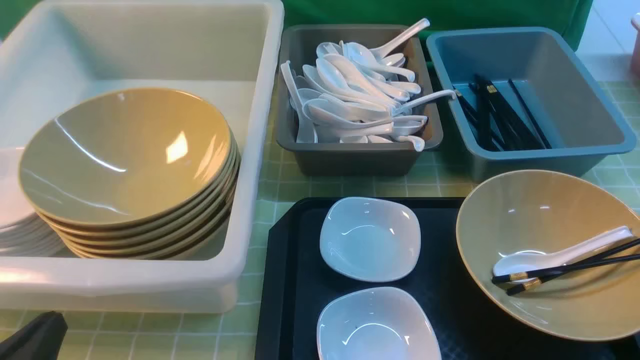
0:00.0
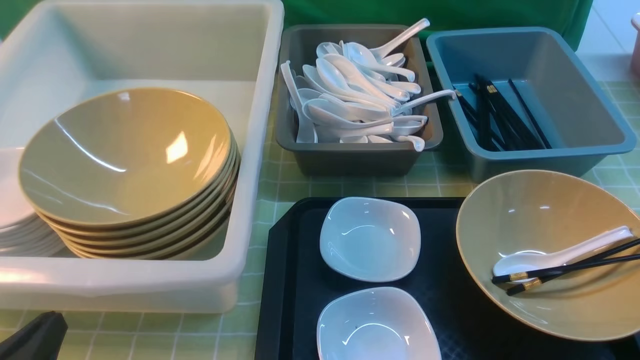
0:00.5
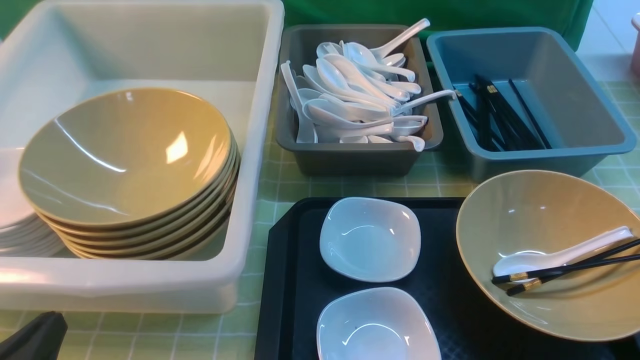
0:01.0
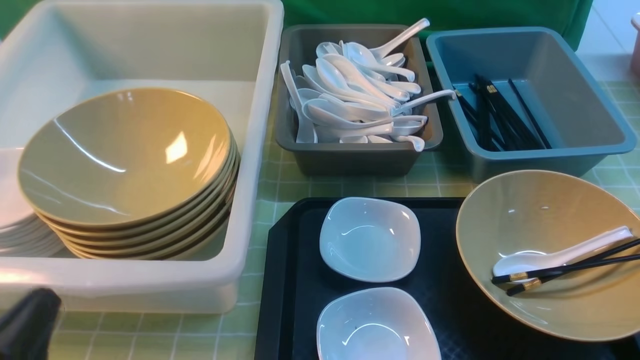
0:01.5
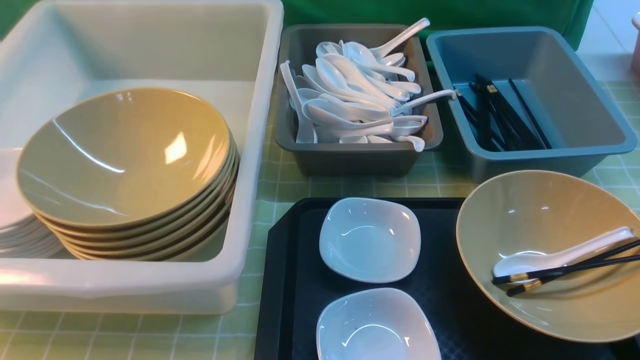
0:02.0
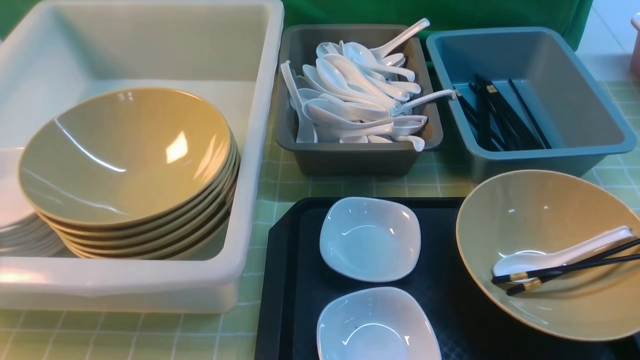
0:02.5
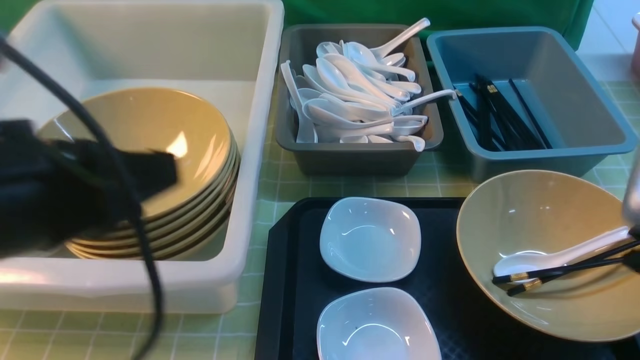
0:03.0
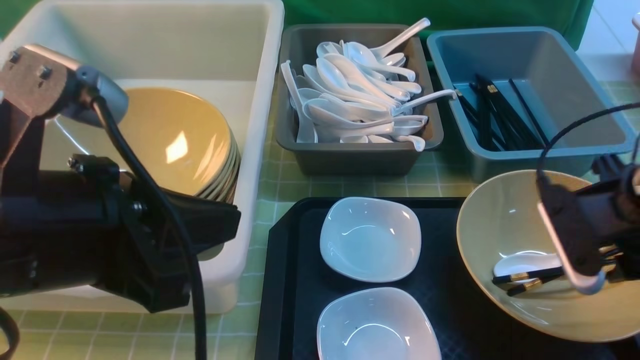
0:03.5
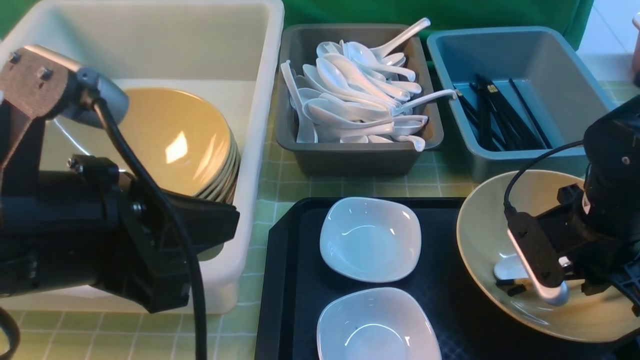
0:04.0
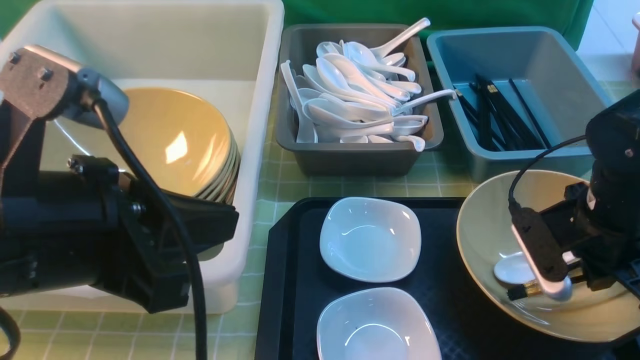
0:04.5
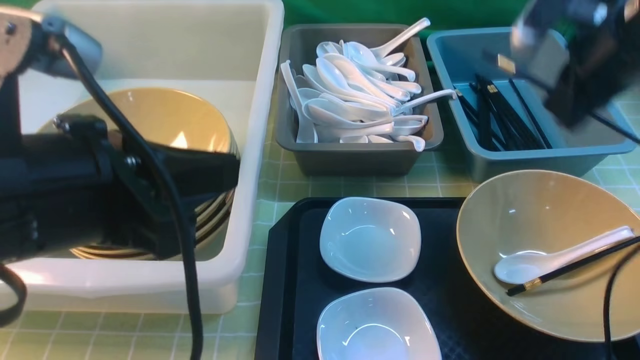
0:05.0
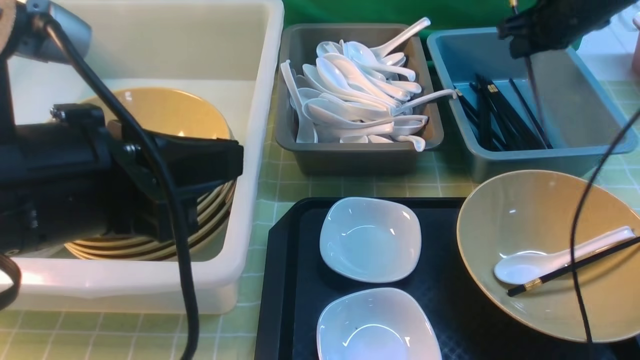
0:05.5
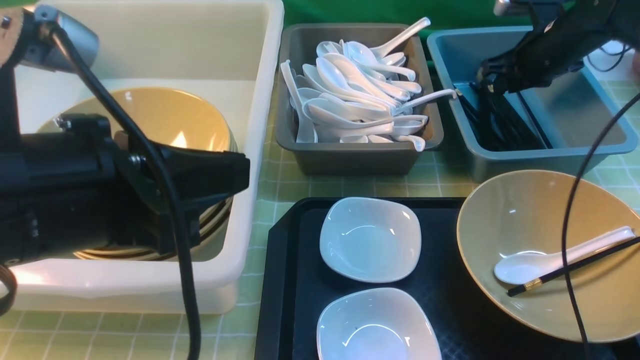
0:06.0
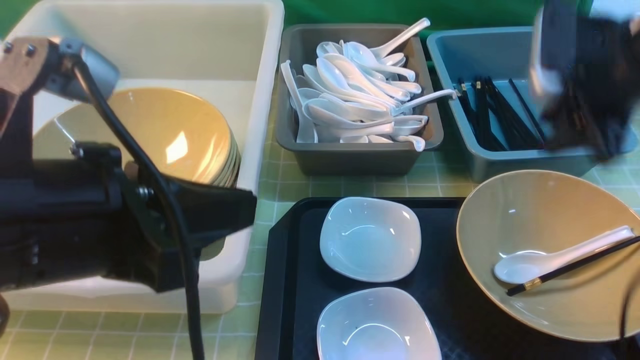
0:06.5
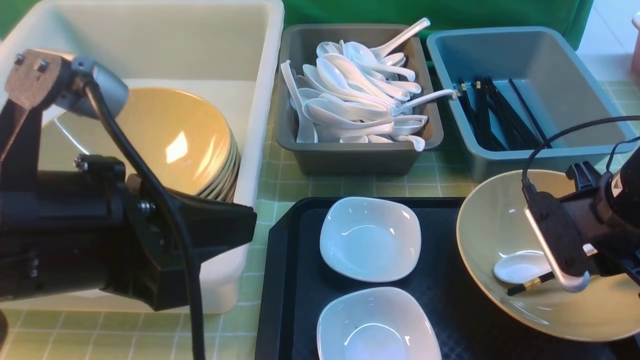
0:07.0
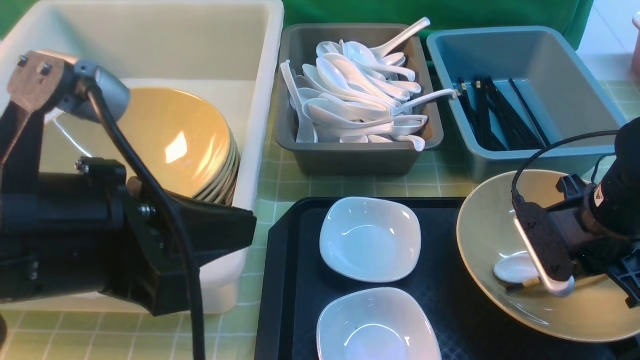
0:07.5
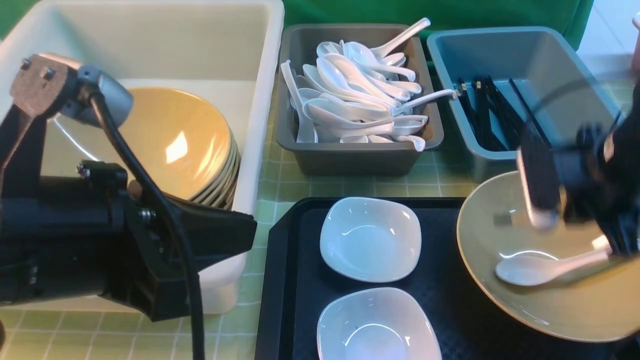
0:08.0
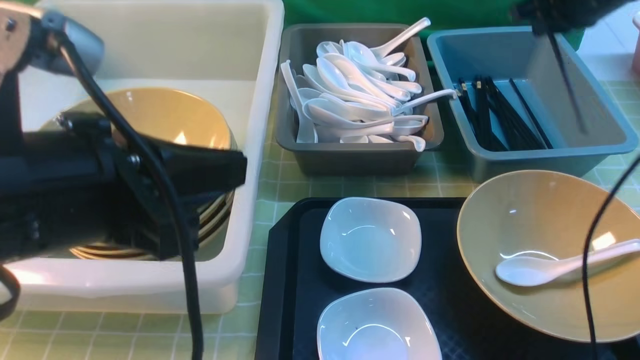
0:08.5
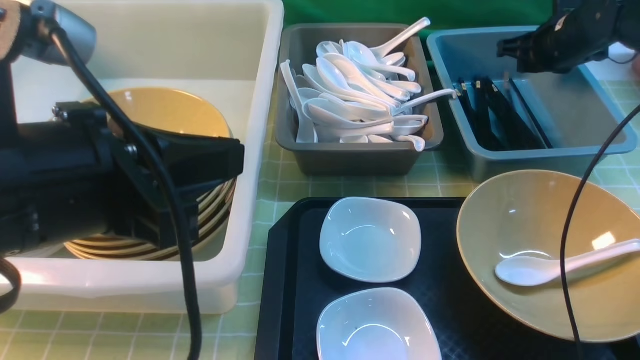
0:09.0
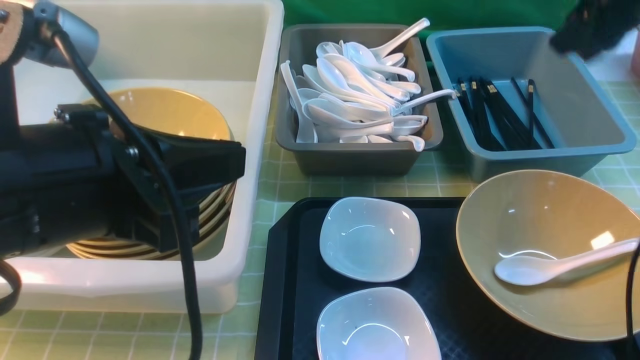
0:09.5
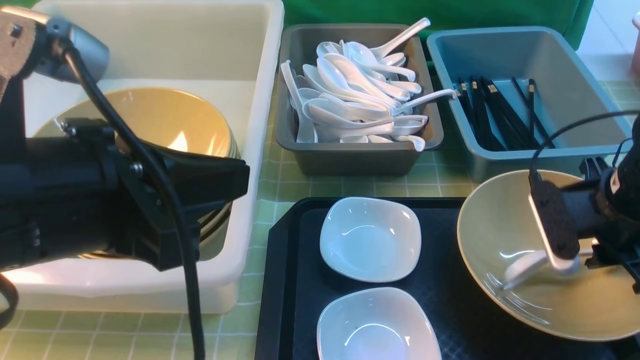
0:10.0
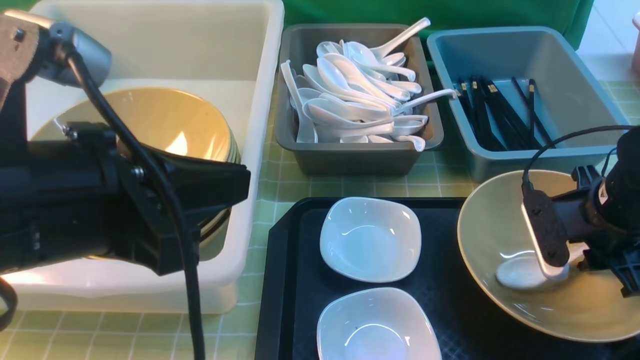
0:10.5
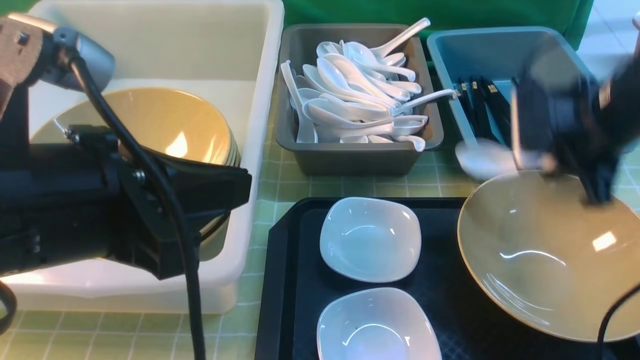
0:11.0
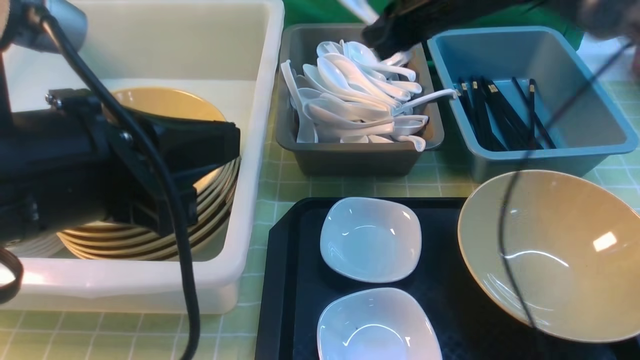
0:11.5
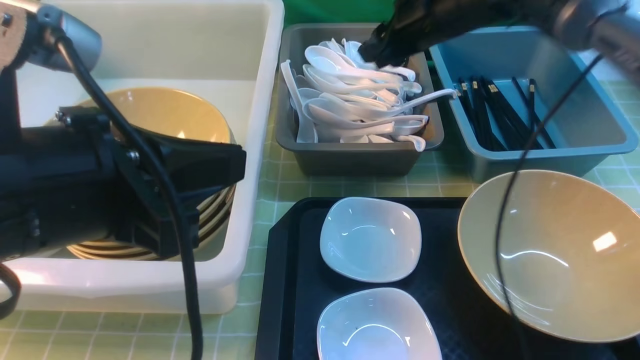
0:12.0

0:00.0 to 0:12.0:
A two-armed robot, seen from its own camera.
Task of the whole recording: on green table put chopsticks spoon bowls plates into blue grey white boxes.
Step, 0:00.0 to 0:04.5: use the right arm to grab a chopstick.
Step, 0:05.0 to 0:06.0: use the right arm to put a chopstick into the small storage box on the right.
Step, 0:06.5 to 0:07.5: use the right arm to grab a chopstick.
Step, 0:08.5 to 0:09.0: use the right arm to put a chopstick into the small storage box on the right.
Step, 0:09.5 to 0:10.5: use the right arm to grab the soup spoon in the middle.
0:00.0 to 0:02.0: Both grippers travel together upward, some 15 cm.
0:02.0 to 0:04.0: The right gripper travels forward and downward by approximately 25 cm; the left gripper heads to the right, forward and upward, covering approximately 15 cm.
0:04.0 to 0:06.0: The right gripper moves forward, roughly 25 cm, and closes, then reopens.
0:06.0 to 0:08.0: The right gripper travels backward by roughly 20 cm, and closes.
0:08.0 to 0:10.0: The right gripper travels forward and back again, roughly 20 cm each way, and opens up.
0:10.0 to 0:12.0: The right gripper is displaced forward, upward and to the left by approximately 25 cm, and closes, then opens again.

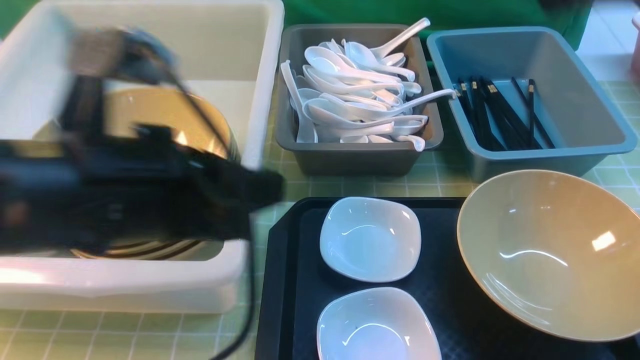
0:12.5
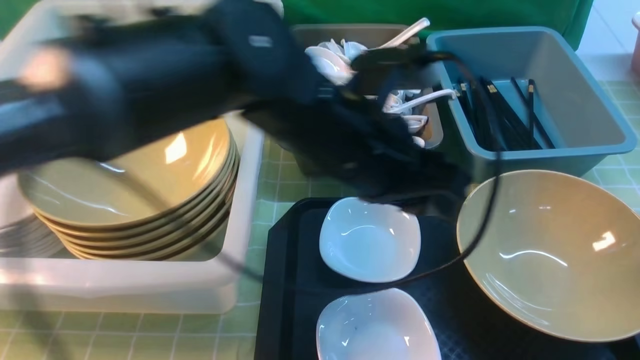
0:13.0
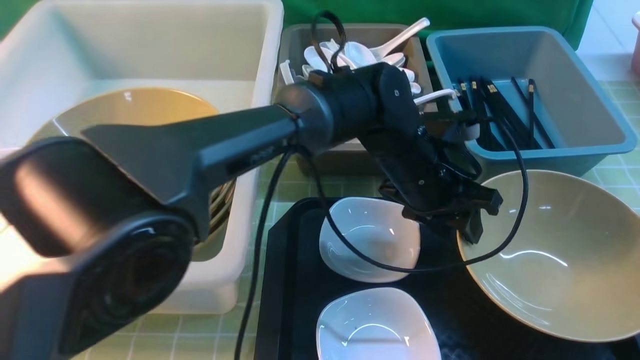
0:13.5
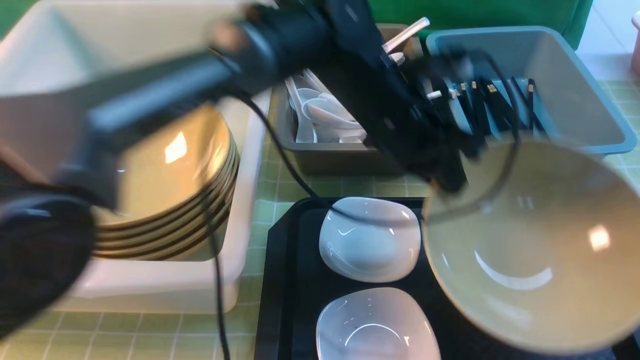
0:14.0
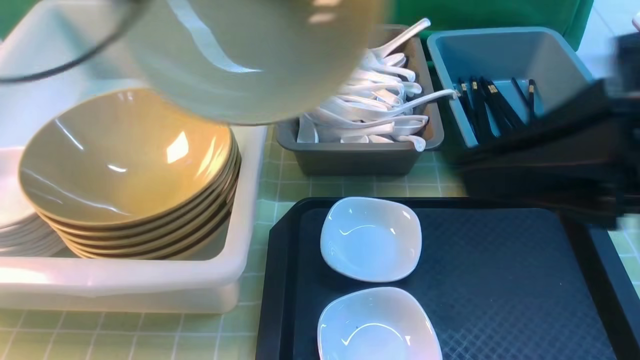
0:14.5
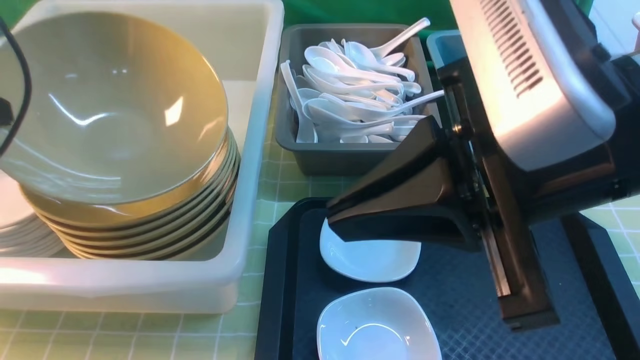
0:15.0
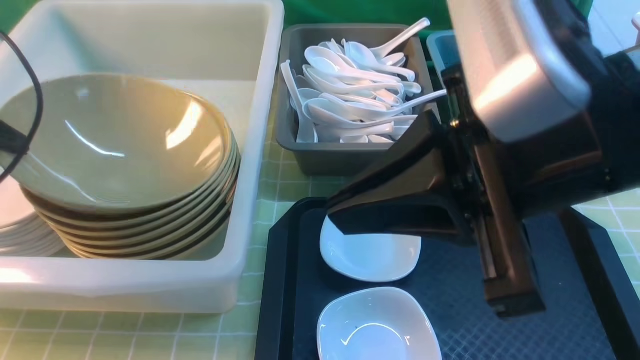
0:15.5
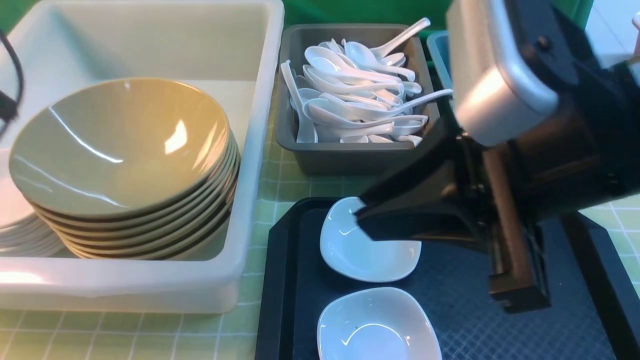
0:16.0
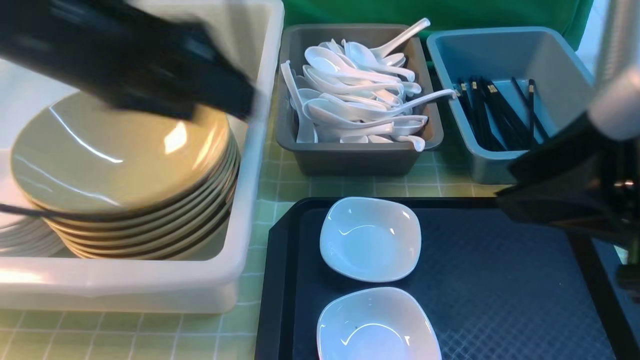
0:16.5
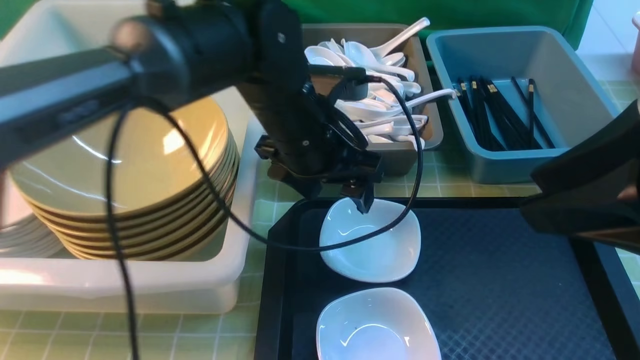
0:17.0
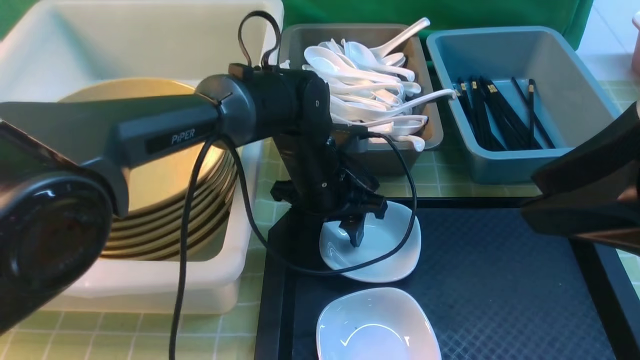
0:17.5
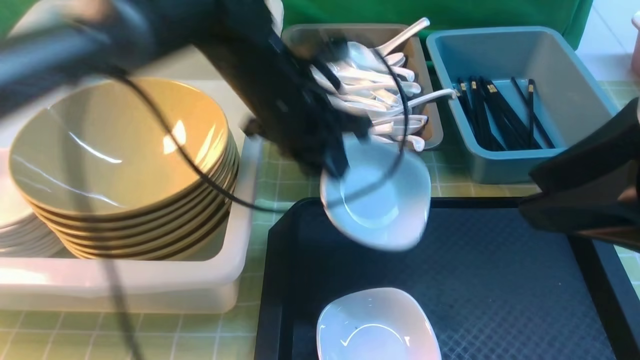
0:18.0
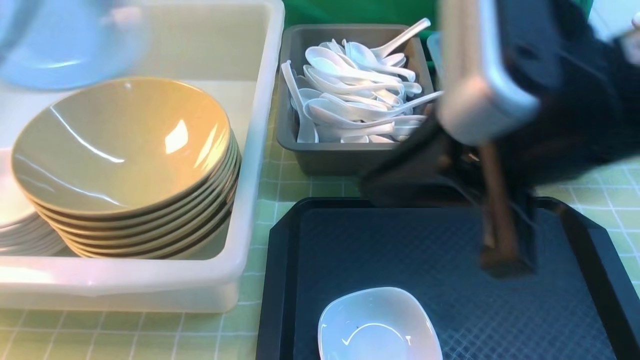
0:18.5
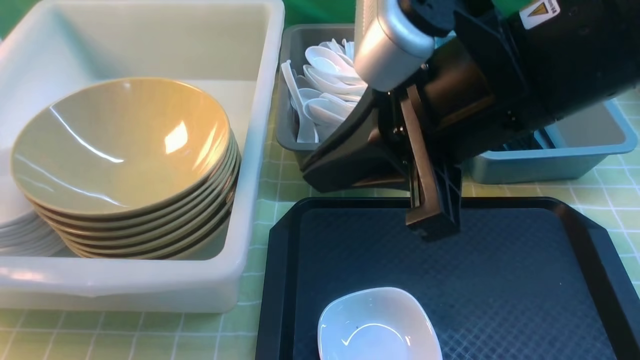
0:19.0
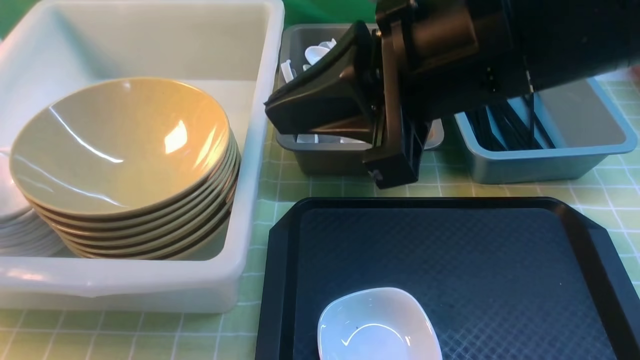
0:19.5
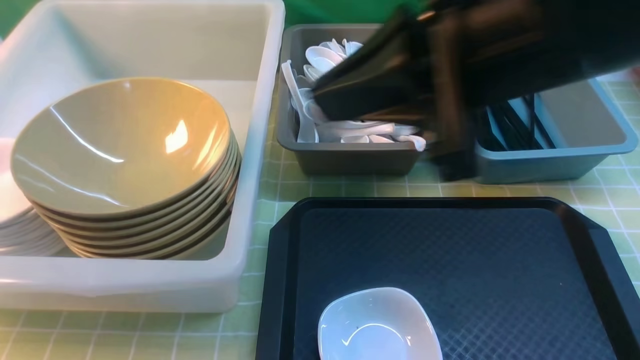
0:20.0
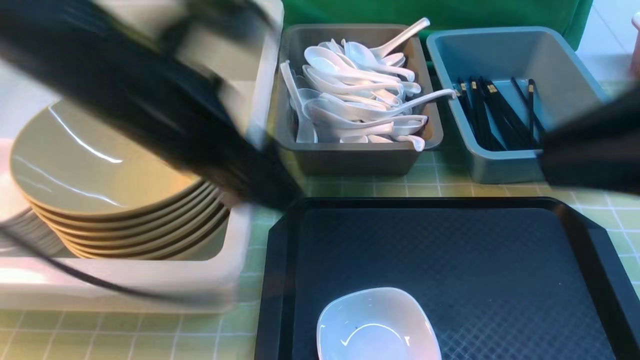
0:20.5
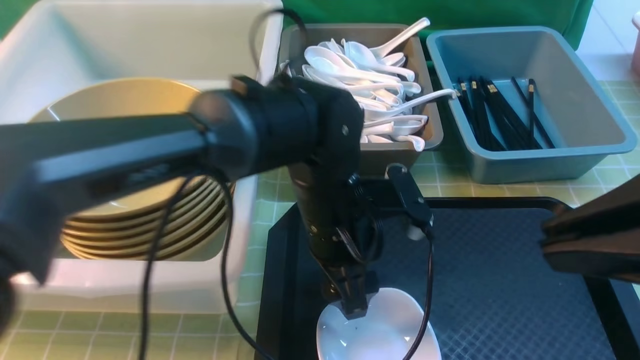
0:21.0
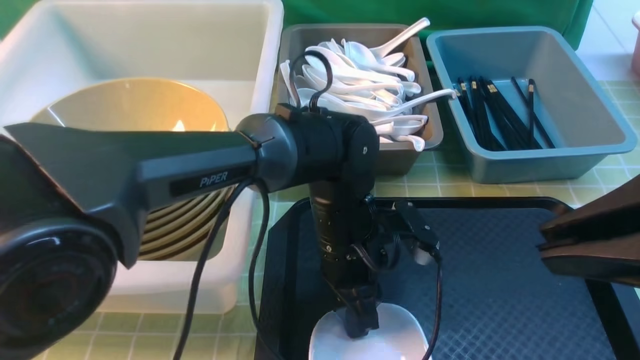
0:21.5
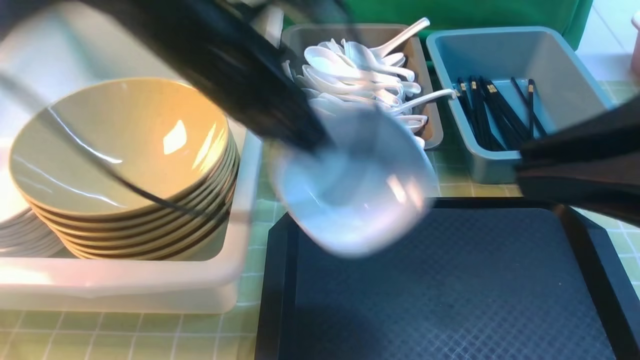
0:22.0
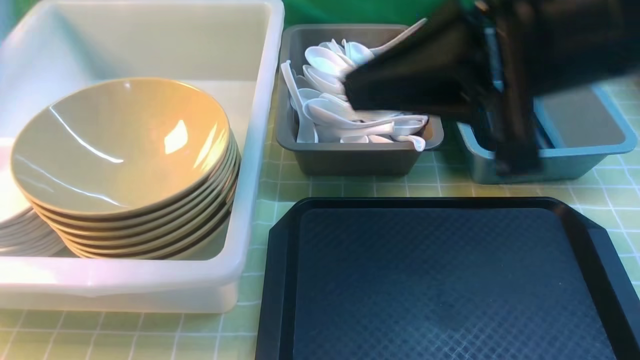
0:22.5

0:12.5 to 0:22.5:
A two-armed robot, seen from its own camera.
Task of the whole recording: on green table put chopsticks spoon bowls plates into blue grey white boxes.
Step, 0:12.5 to 0:13.5: use the left arm to grab the yellow noodle bowl on the left.
Step, 0:14.5 to 0:15.5: use the left arm to put the noodle bowl into the large storage box on the left.
Step, 0:16.0 to 0:17.5: use the left arm to grab the plate.
Step, 0:18.0 to 0:19.5: use the left arm to put the plate into the large storage box on the left.
Step, 0:20.0 to 0:21.5: use the left arm to grab the plate.
0:12.5 to 0:14.5: The left gripper travels to the left, forward and upward by some 20 cm, and opens, then closes again. Meanwhile the right gripper is displaced backward, downward and to the left by some 10 cm.
0:14.5 to 0:16.5: The left gripper is displaced to the right by about 10 cm, and opens up. Meanwhile the right gripper opens up.
0:16.5 to 0:18.5: The right gripper is displaced to the left by roughly 5 cm, and closes its fingers, while the left gripper goes roughly 15 cm to the left, and closes.
0:18.5 to 0:20.5: The right gripper travels to the right and backward by approximately 10 cm; the left gripper heads to the right and downward, covering approximately 20 cm, and opens its fingers.
0:20.5 to 0:22.5: The right gripper is displaced forward and to the left by approximately 10 cm, while the left gripper is displaced to the left and upward by about 25 cm, and closes its fingers.
